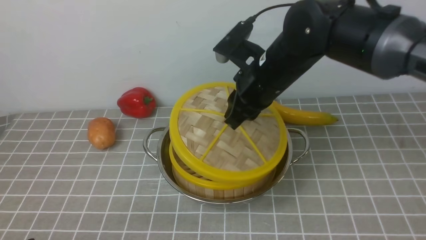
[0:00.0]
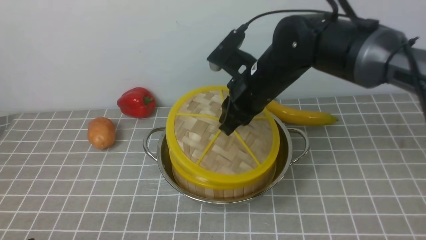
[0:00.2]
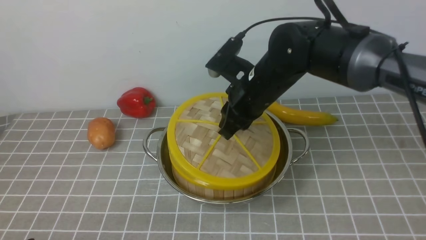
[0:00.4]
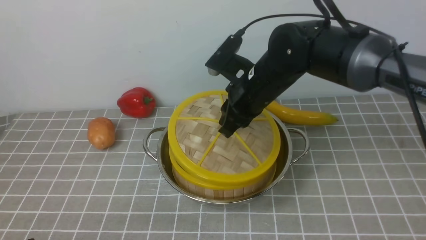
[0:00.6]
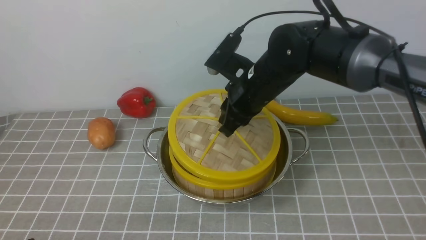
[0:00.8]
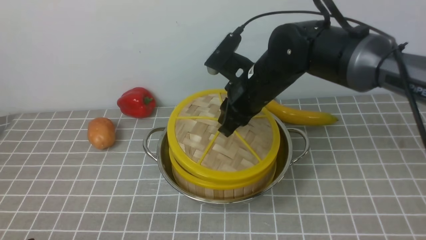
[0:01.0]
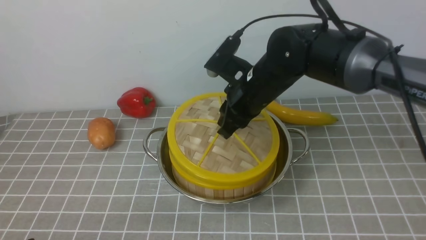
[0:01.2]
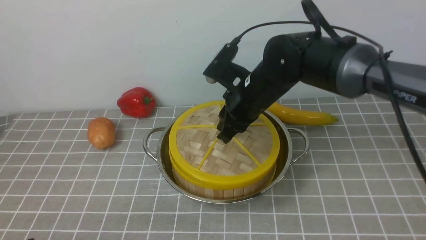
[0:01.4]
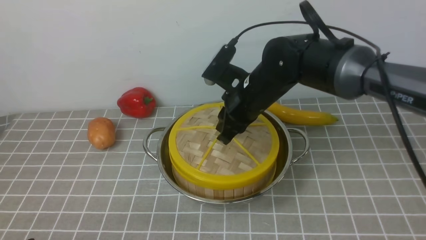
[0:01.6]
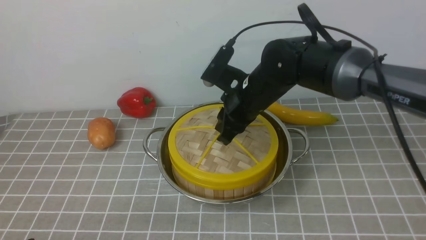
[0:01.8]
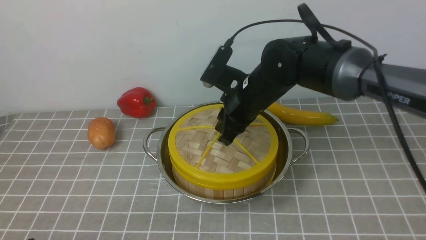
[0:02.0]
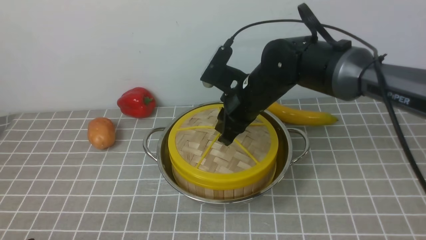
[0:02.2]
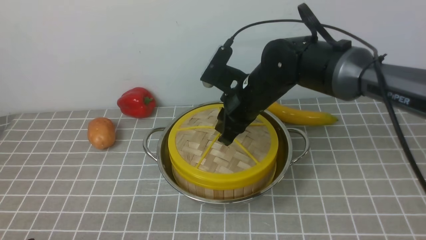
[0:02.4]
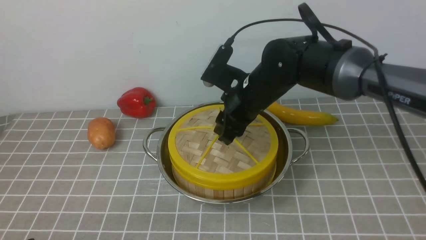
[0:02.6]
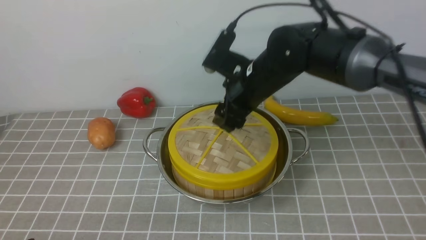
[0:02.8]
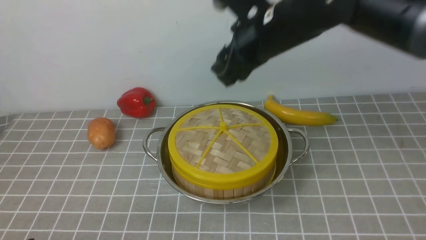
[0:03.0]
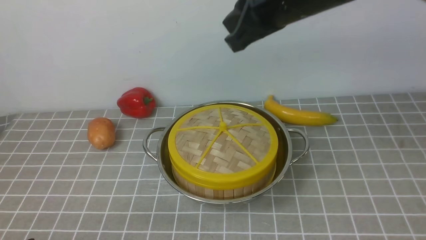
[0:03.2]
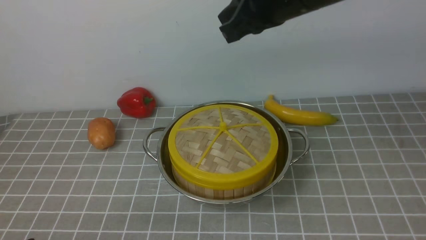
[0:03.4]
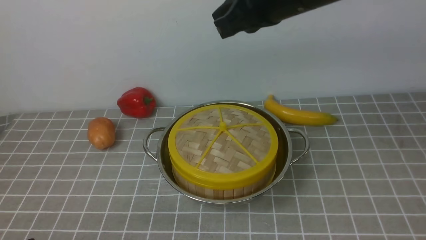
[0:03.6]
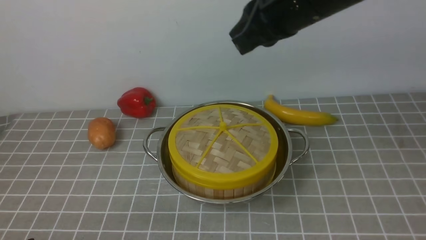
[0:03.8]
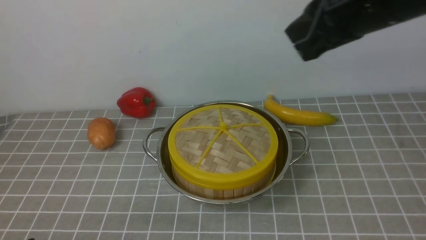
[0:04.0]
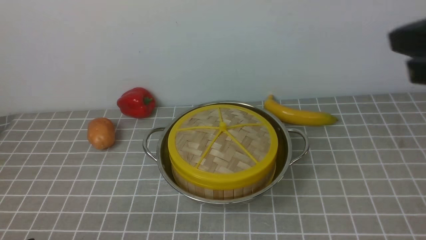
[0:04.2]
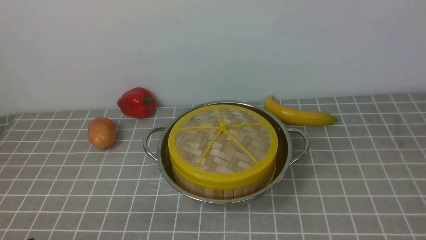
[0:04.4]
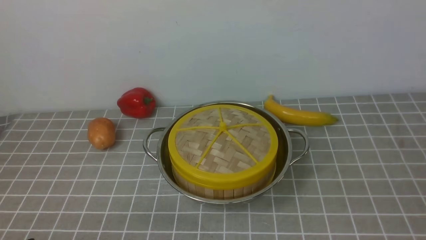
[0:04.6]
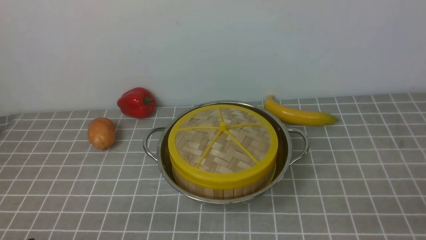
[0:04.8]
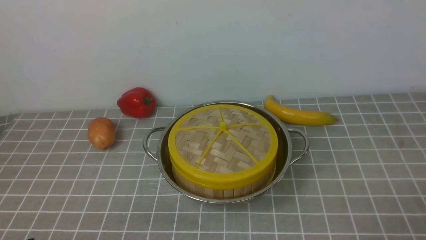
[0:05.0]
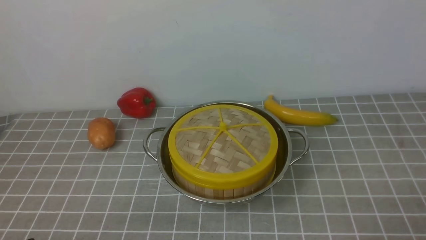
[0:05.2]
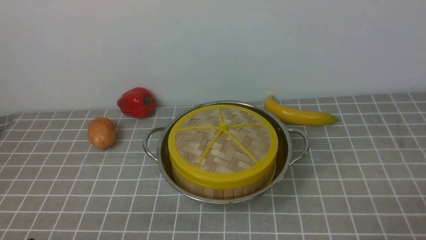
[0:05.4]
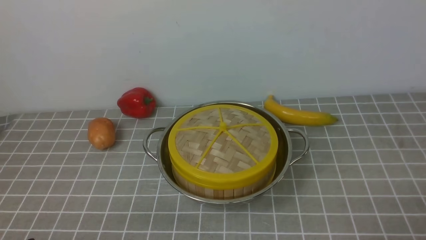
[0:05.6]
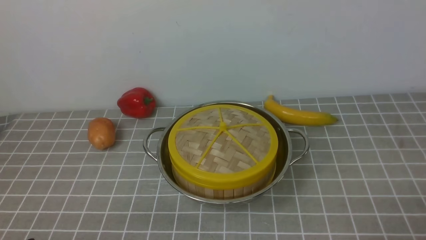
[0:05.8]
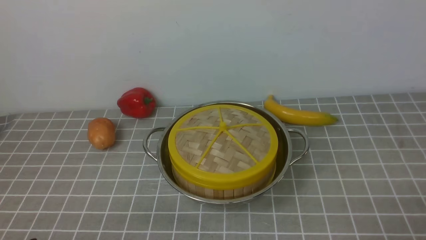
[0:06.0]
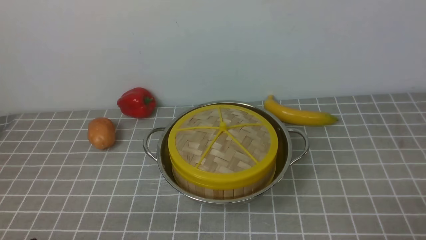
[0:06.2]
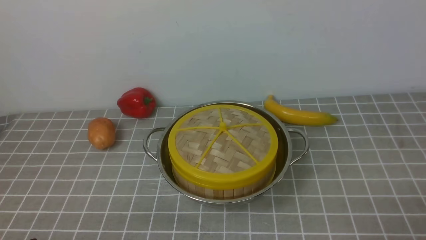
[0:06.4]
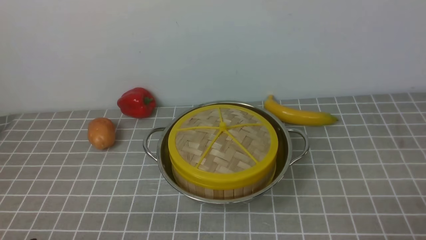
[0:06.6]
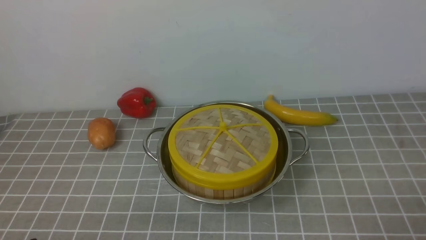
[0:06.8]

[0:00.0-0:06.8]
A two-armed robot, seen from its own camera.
Task of the whole recording: place the steamer in the pot on the grey tablecloth, and put the lid on the steamer.
Step, 0.0 to 2.8 s: use the right arm to place the steamer lid on the steamer.
0.0 to 1.4 s: The grippers move only a little.
1.4 to 2.8 s: The right gripper moves upward, approximately 5 cm, and opens up.
2.8 to 4.0 s: The right gripper moves upward, to the right and backward, about 20 cm, and closes up.
4.0 to 5.4 s: The right gripper goes roughly 35 cm downward, backward and to the right, and opens up.

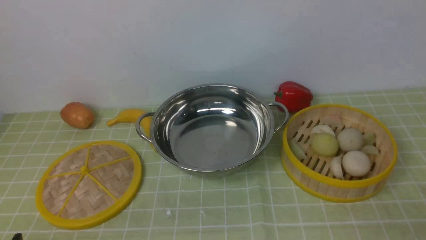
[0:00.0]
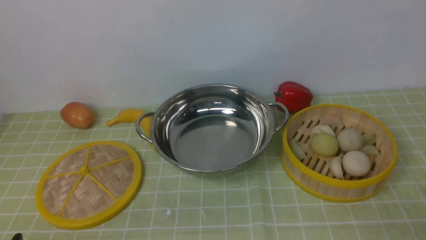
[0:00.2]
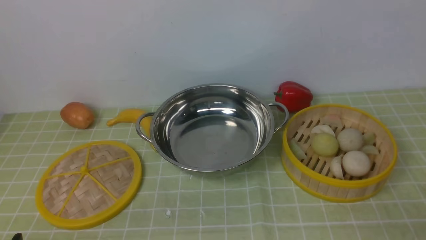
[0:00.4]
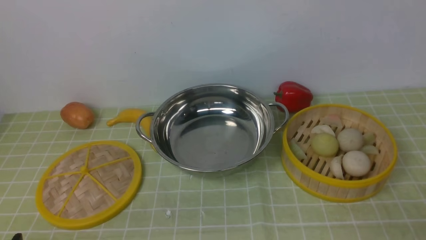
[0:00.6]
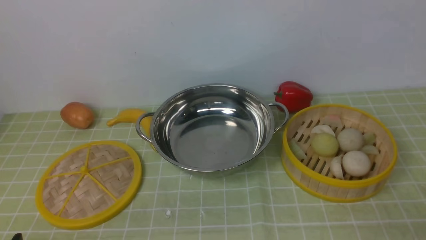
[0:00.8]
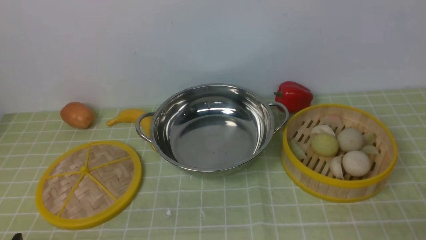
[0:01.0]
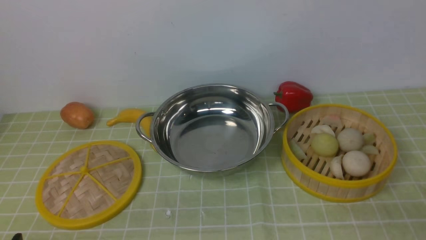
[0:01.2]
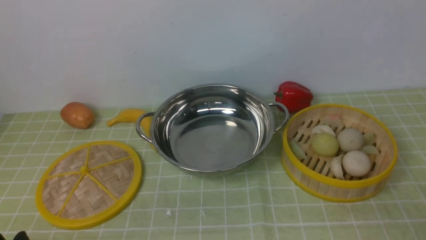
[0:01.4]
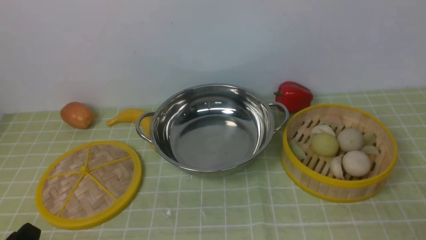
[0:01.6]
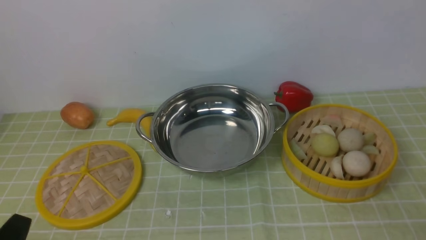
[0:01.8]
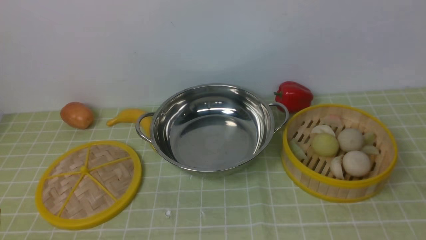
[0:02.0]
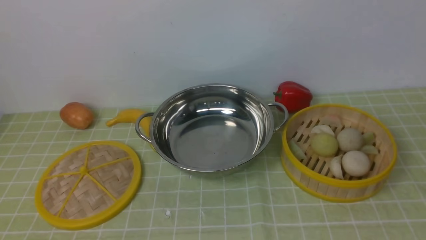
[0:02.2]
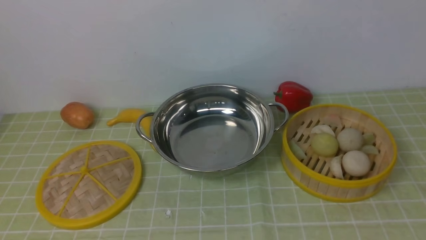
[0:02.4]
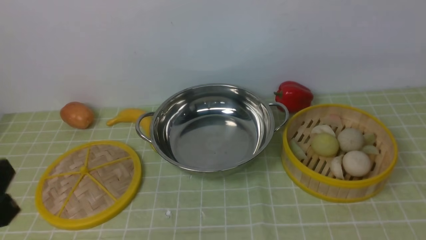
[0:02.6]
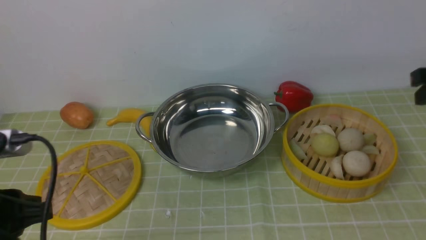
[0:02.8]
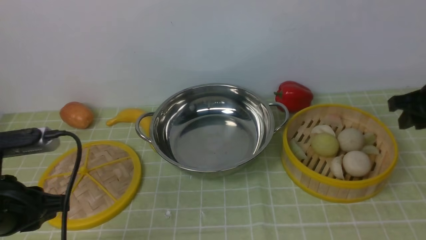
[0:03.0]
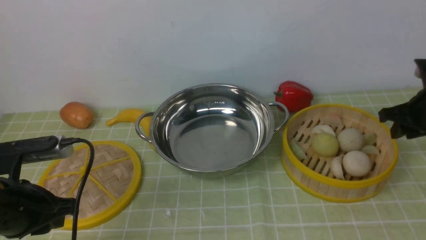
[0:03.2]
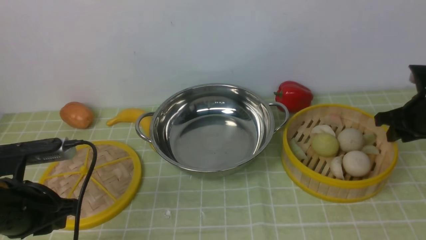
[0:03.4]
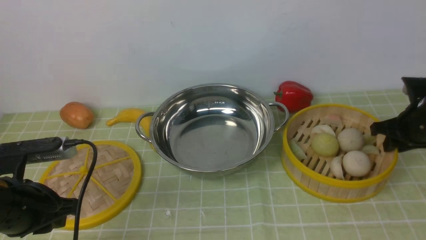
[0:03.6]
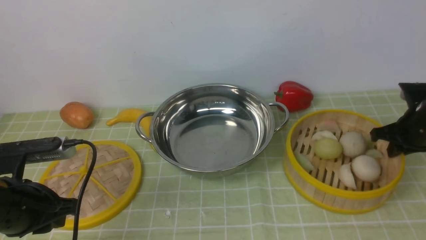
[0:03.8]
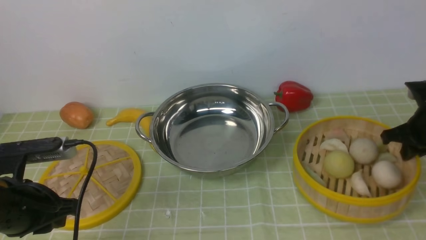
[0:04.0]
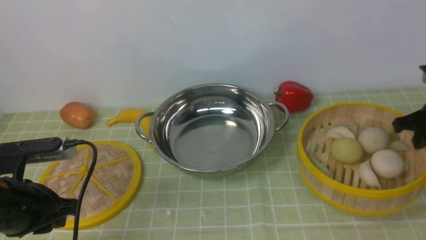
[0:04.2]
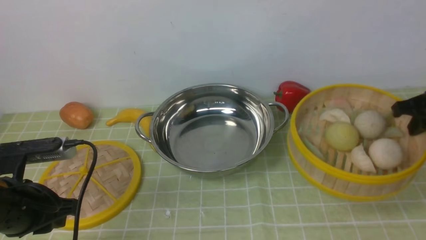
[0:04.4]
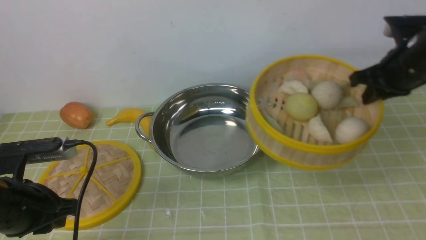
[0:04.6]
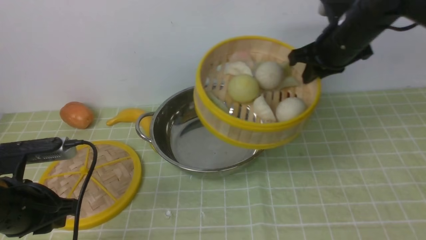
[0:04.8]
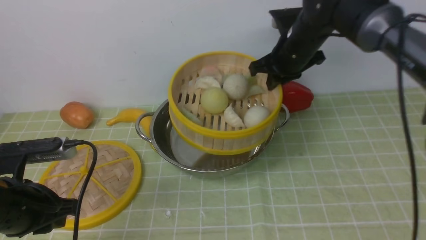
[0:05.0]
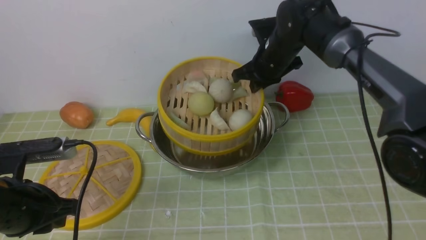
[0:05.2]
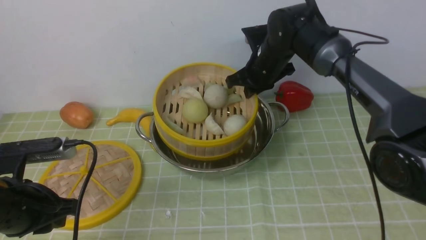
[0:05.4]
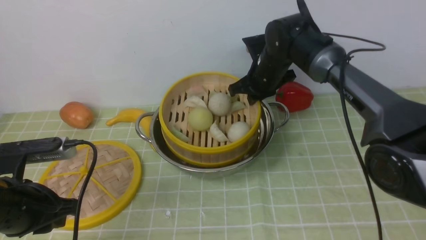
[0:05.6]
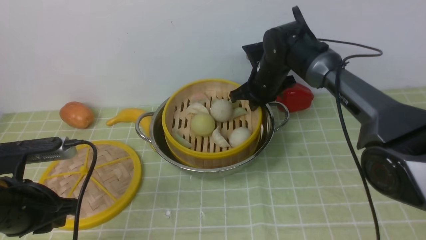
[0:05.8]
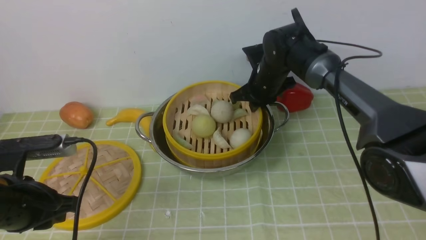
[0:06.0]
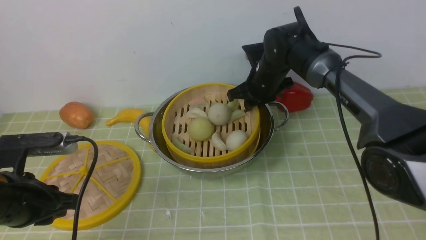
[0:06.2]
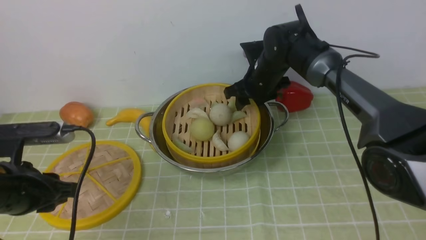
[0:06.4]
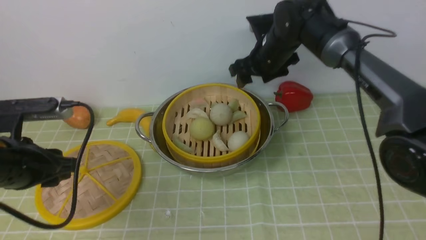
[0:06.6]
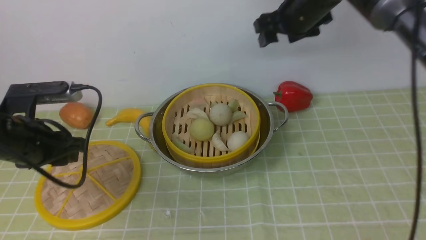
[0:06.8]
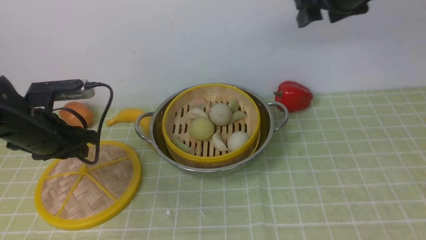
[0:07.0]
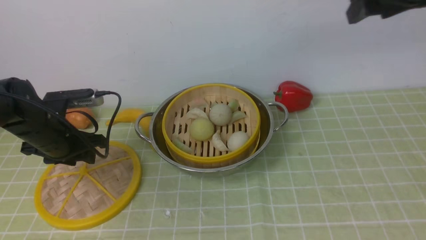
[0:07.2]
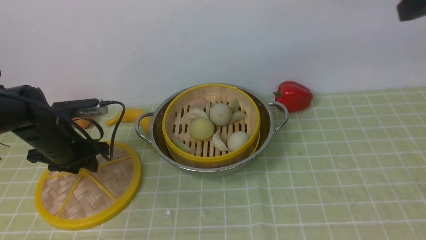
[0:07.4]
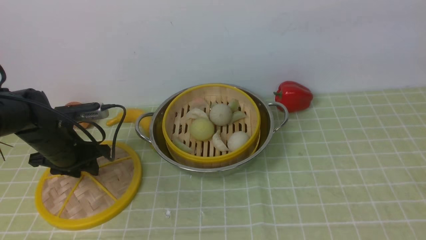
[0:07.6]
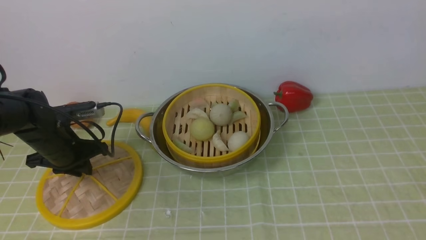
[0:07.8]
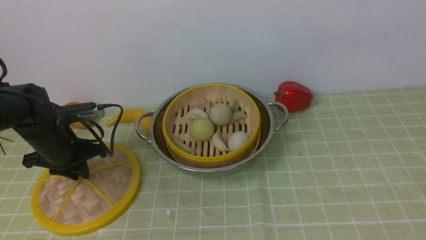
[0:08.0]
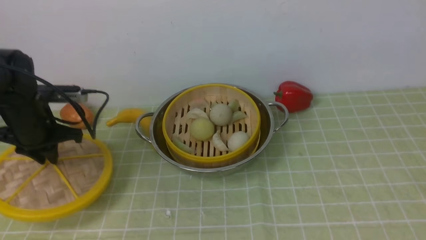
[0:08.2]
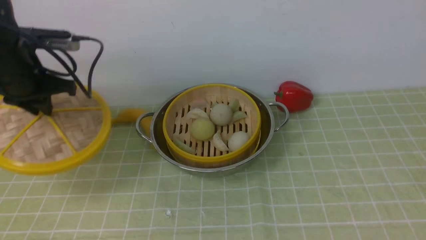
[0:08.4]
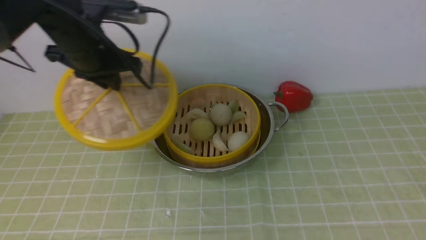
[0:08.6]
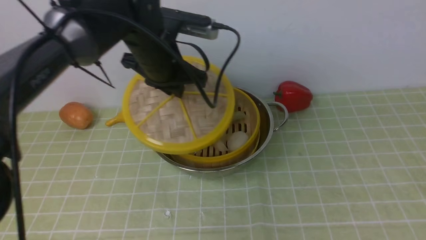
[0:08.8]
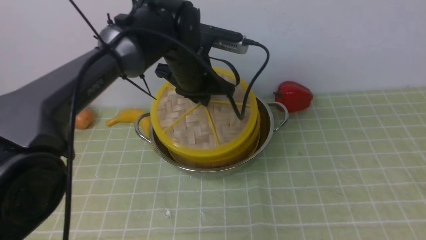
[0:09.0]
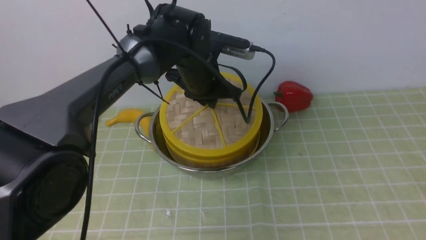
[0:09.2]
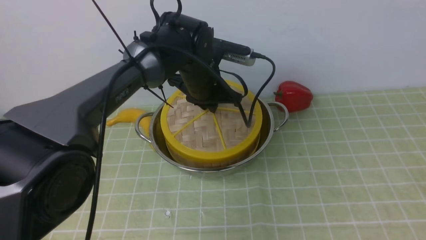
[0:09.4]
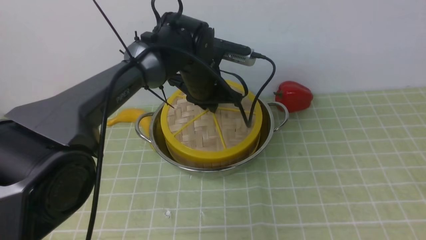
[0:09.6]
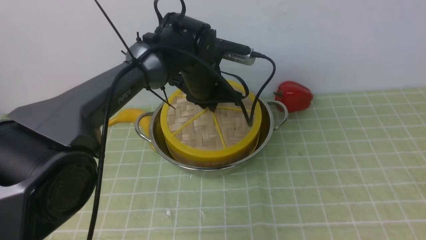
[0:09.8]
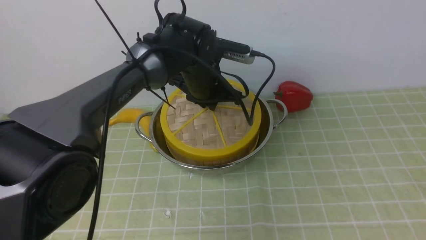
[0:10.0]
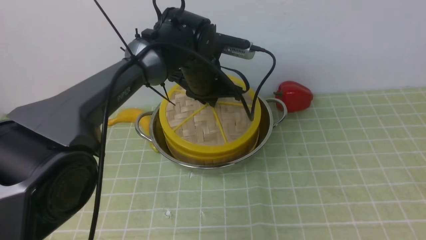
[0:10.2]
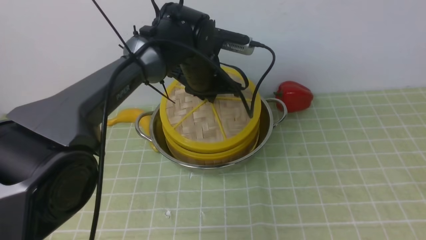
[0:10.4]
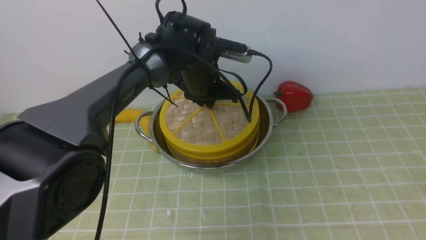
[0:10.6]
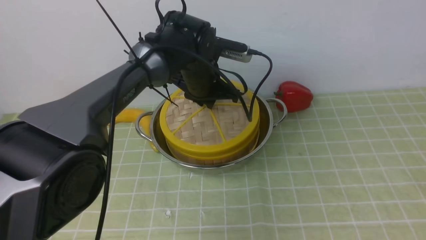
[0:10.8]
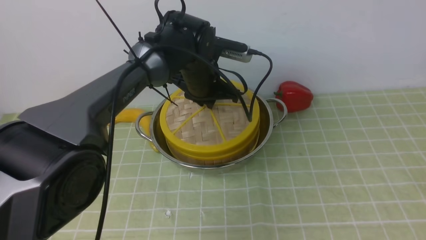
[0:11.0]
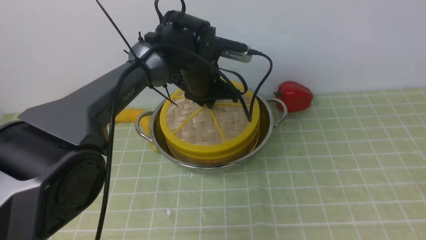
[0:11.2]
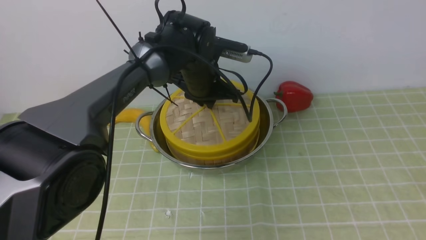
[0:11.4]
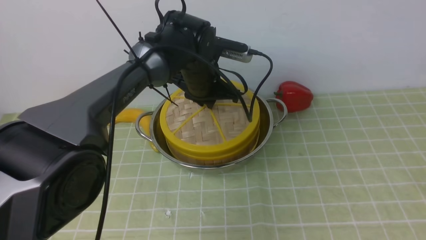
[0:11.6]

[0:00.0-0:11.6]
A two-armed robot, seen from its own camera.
Task of the whole recording: place the steamer in the pot on the green tablecloth, and put the lid on the steamer.
Step, 0.0 to 4.2 s: use the right arm to lift the steamer closest to it.
Step, 4.6 to 6.6 s: use the right arm to put the steamer into the iron steamer pot in the middle.
Step, 6.8 to 8.4 s: use the left arm to lift the lid of the steamer.
1.4 to 2.8 s: The left gripper shifts about 15 cm upward and forward.
2.8 to 4.4 s: The right gripper is displaced forward by roughly 5 cm, travels downward and back again, approximately 15 cm each way, and closes. The left gripper travels forward and downward by about 10 cm.
4.4 to 5.8 s: The right gripper travels to the left and forward by about 25 cm.
5.8 to 7.2 s: The right gripper shifts roughly 30 cm upward, to the right and backward, and opens up, while the left gripper heads forward, covering about 15 cm, and opens its fingers.
7.2 to 8.8 s: The left gripper shifts approximately 20 cm to the right and upward, and closes up. The right gripper moves backward, some 25 cm, and closes up.
8.8 to 10.2 s: The left gripper heads to the right and downward, covering some 10 cm.
10.2 to 11.6 s: Both grippers stay put.
